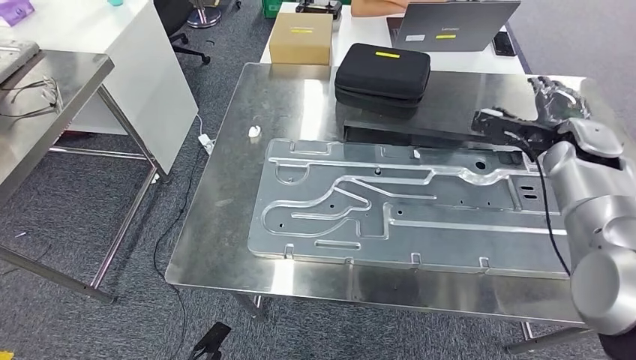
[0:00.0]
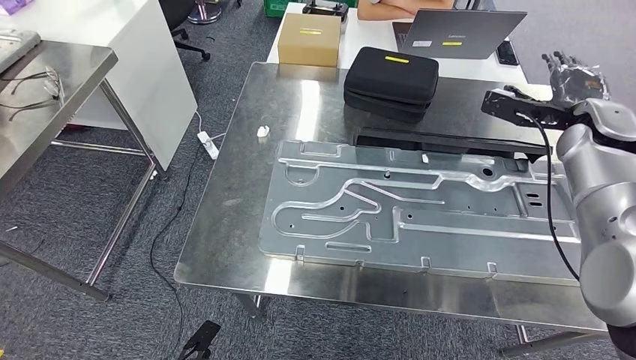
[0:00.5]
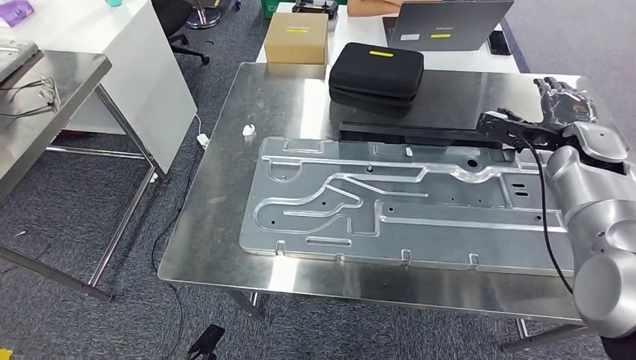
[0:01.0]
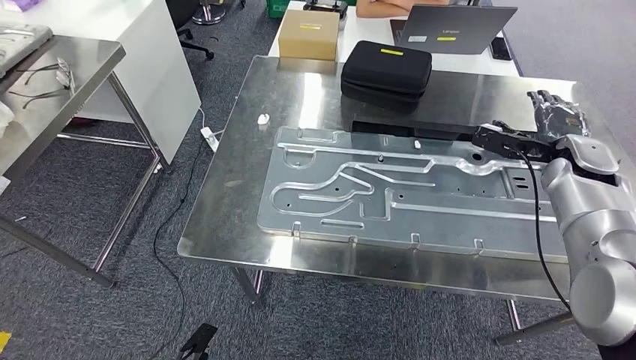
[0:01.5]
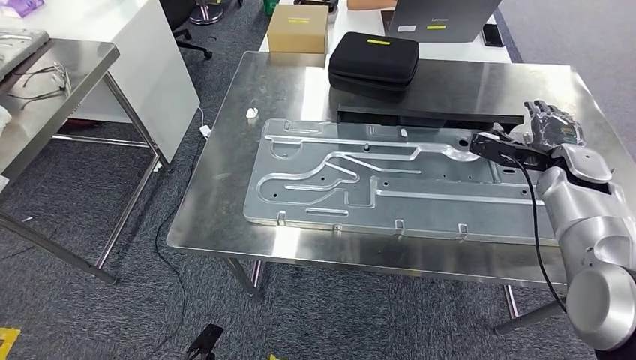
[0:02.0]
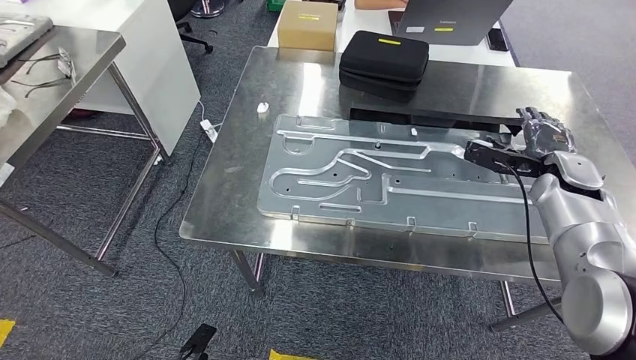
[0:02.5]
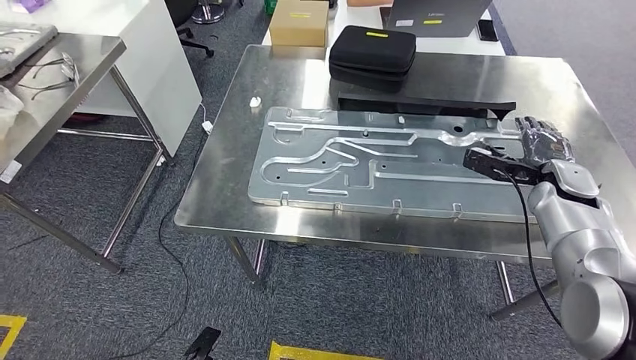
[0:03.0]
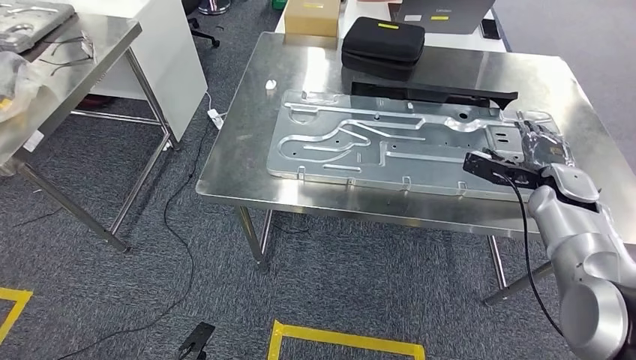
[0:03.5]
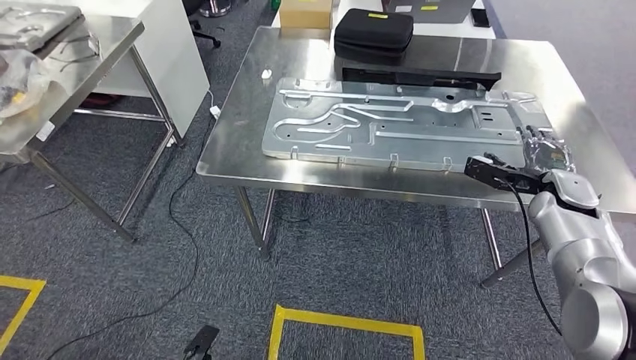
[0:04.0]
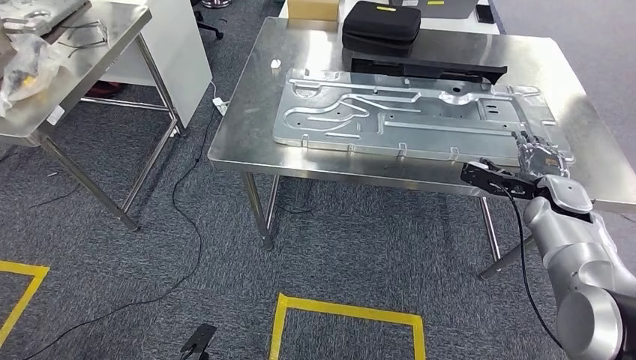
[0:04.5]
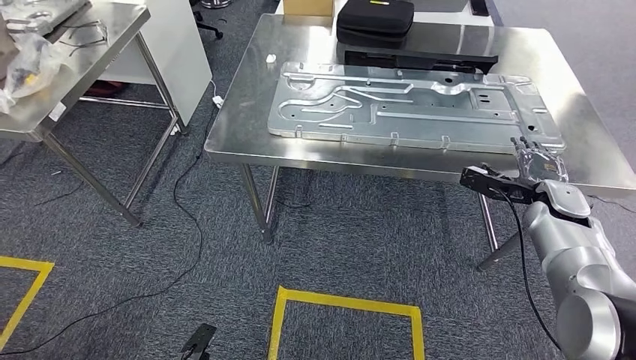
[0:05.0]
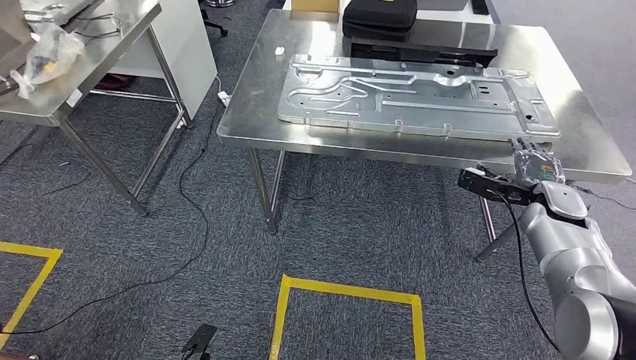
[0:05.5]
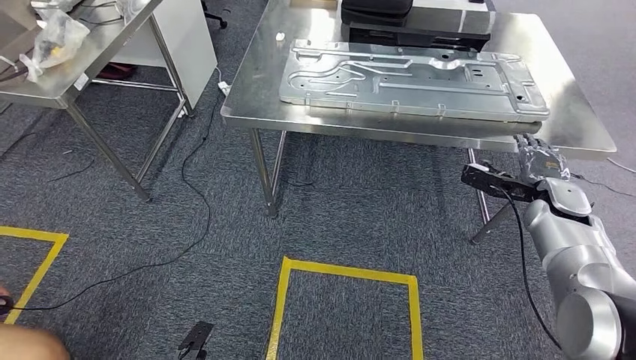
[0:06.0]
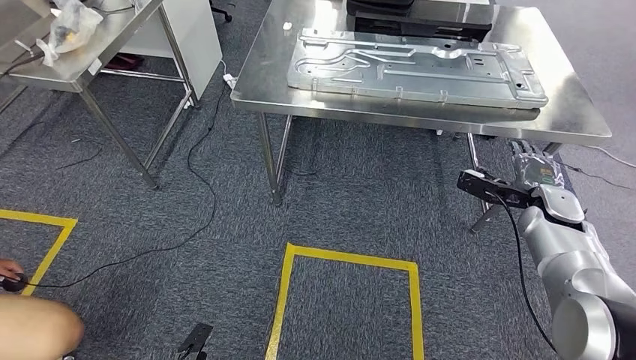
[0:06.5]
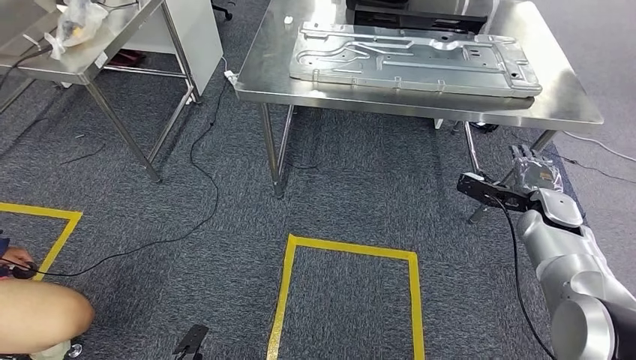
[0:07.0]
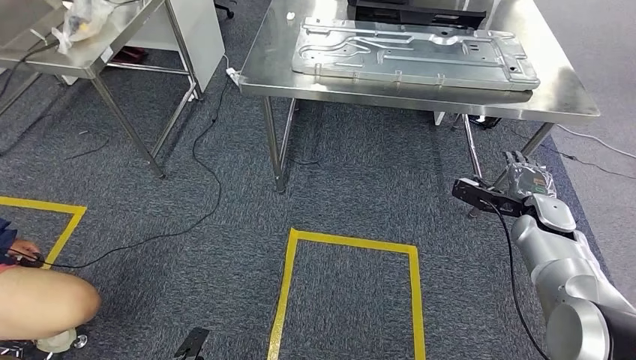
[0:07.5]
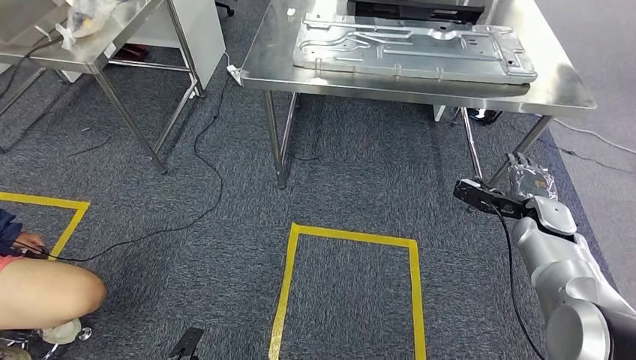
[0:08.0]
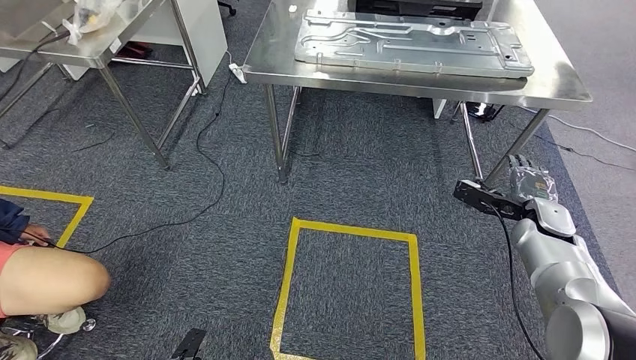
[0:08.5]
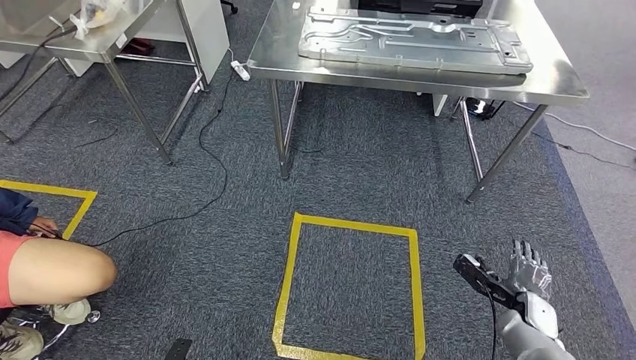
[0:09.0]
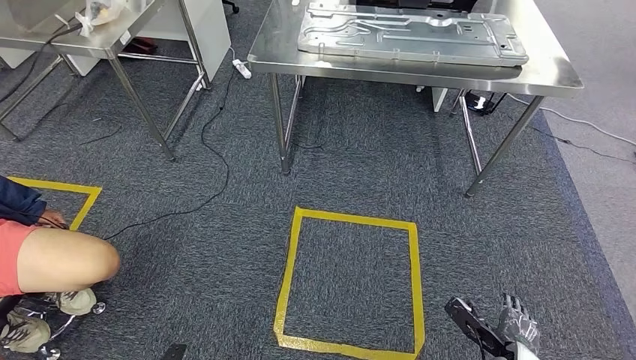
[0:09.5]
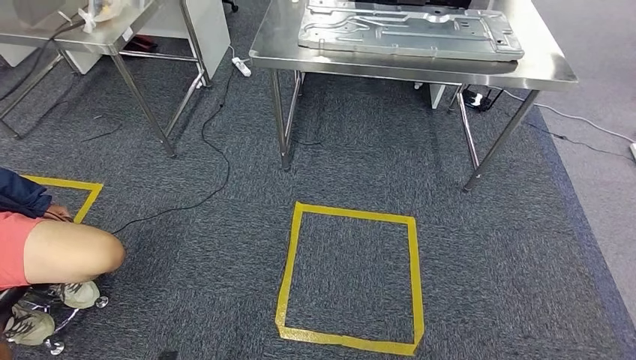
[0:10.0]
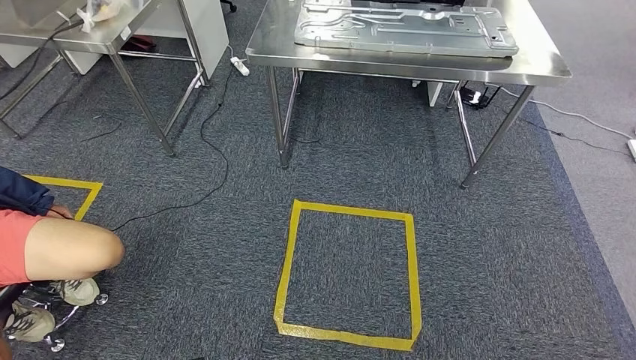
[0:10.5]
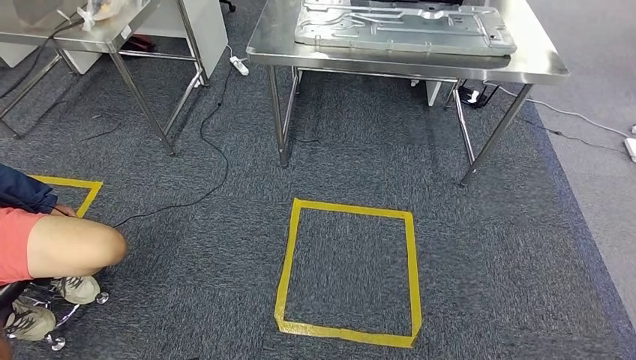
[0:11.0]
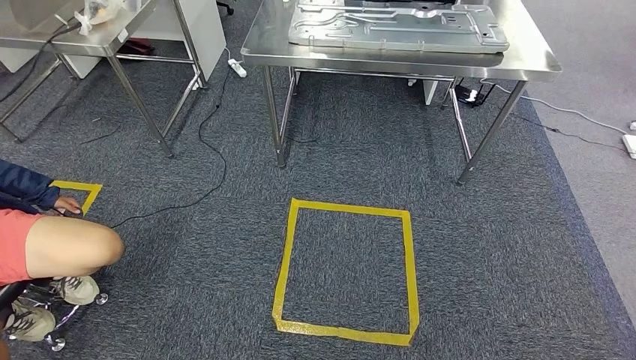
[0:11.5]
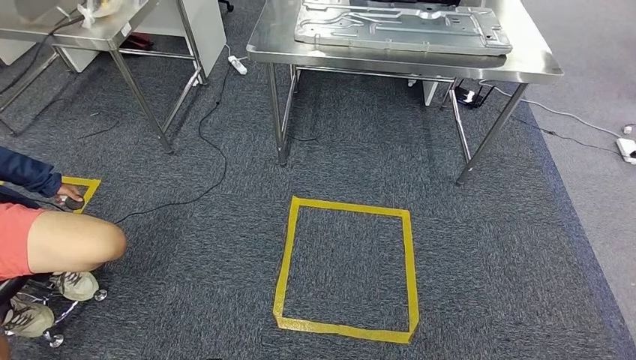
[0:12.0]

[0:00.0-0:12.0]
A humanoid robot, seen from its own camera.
Step, 0:00.0 to 0:07.0: Insert the large material into the corresponding slot on the workbench.
0:10.0 to 0:12.0: The right hand shifts roughly 10 cm to the left and backward, while the left hand moves to the right, some 10 cm.

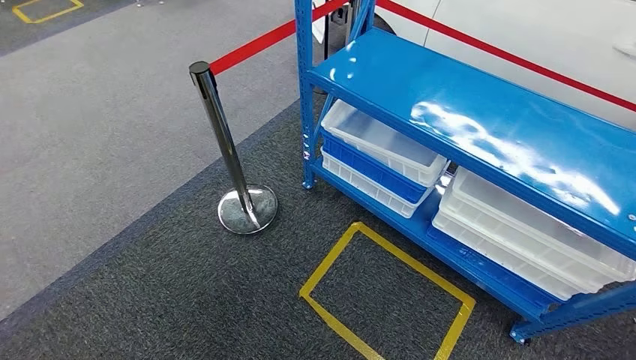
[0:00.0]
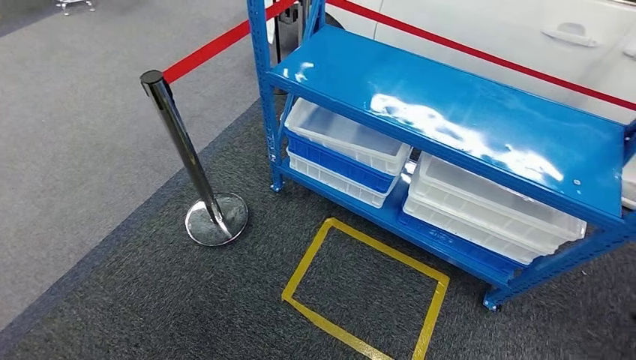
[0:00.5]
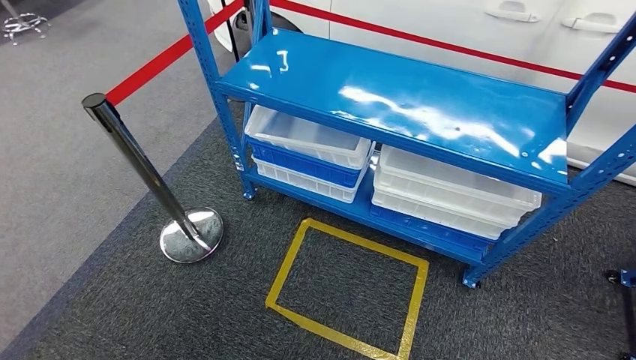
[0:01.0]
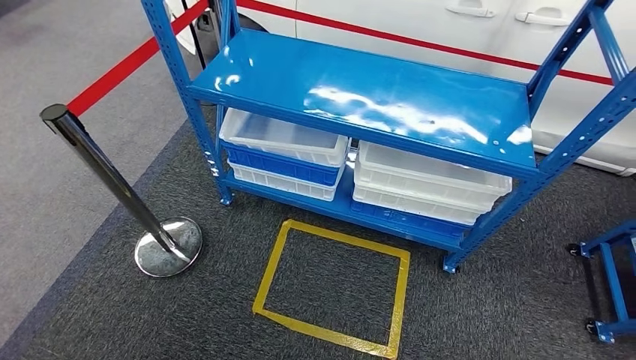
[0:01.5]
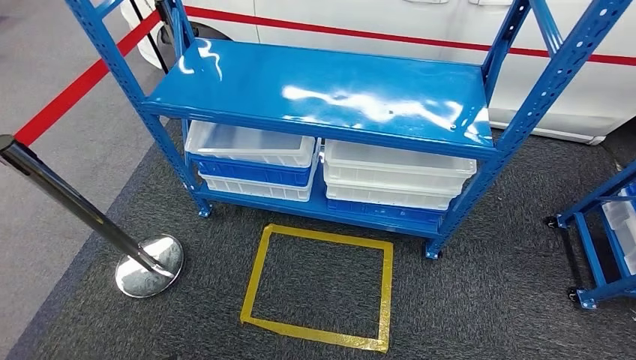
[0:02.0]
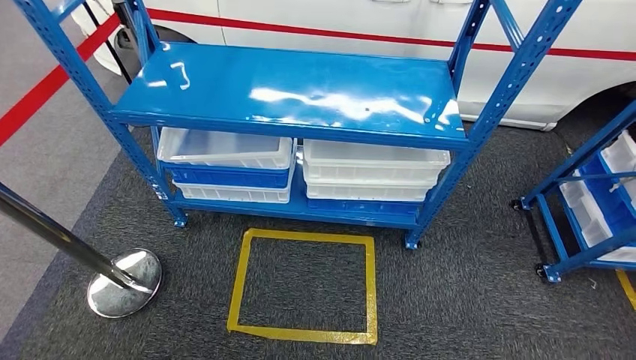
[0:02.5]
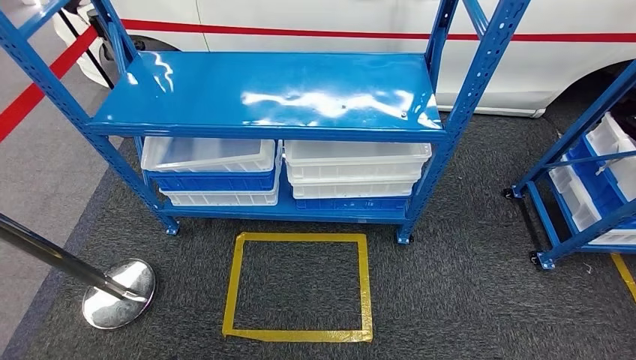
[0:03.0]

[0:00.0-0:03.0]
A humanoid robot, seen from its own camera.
Step, 0:00.0 to 0:03.0: Move to the initial position of the shelf.
